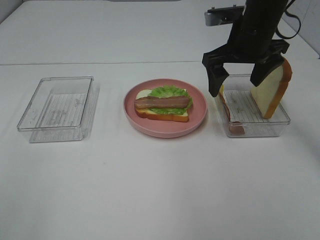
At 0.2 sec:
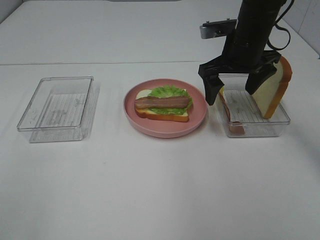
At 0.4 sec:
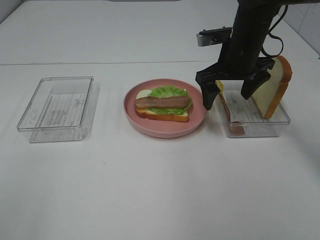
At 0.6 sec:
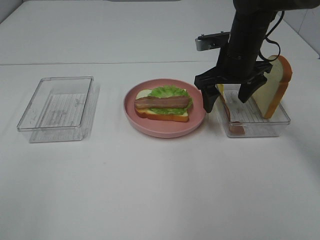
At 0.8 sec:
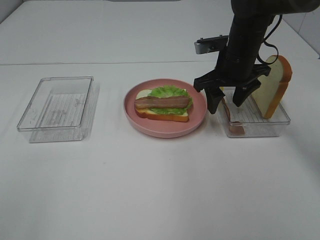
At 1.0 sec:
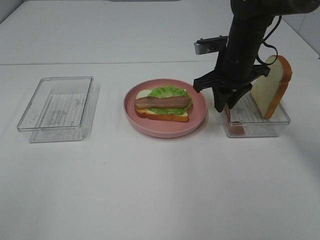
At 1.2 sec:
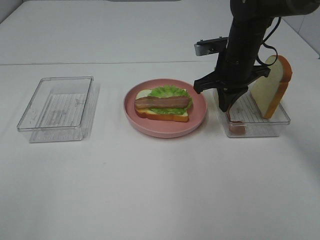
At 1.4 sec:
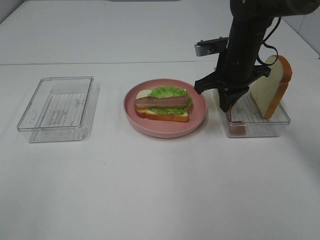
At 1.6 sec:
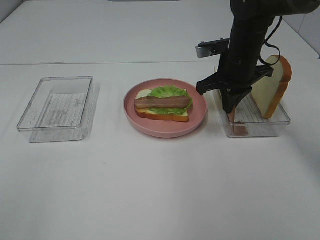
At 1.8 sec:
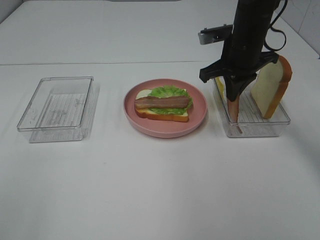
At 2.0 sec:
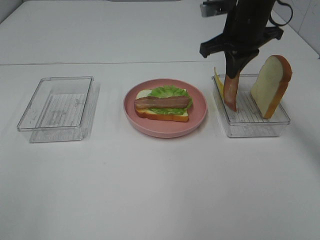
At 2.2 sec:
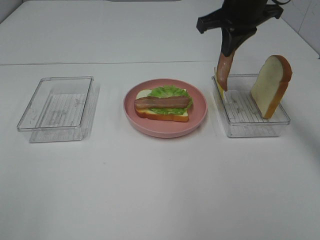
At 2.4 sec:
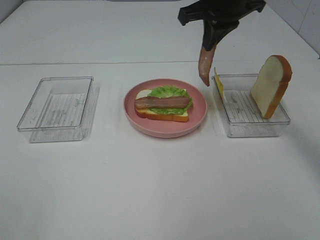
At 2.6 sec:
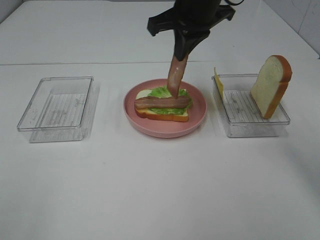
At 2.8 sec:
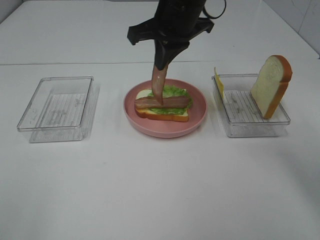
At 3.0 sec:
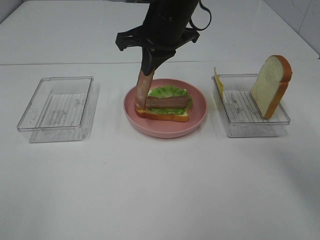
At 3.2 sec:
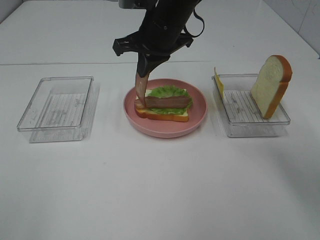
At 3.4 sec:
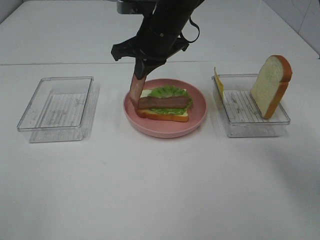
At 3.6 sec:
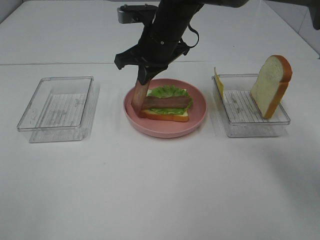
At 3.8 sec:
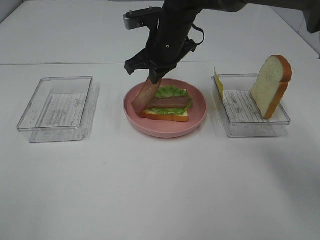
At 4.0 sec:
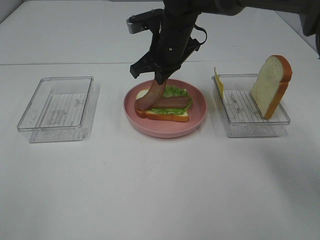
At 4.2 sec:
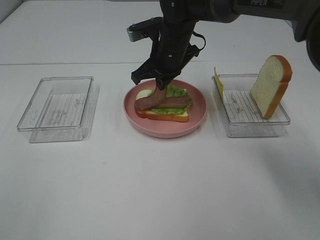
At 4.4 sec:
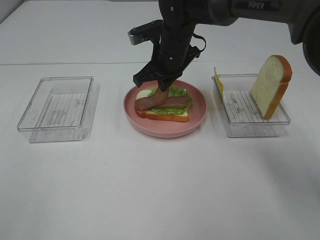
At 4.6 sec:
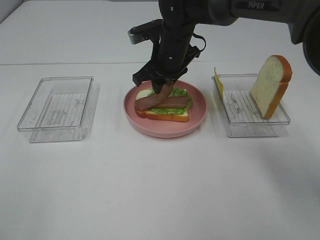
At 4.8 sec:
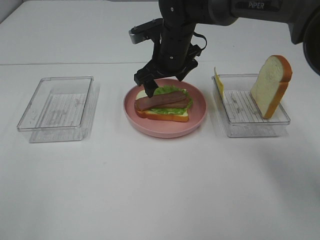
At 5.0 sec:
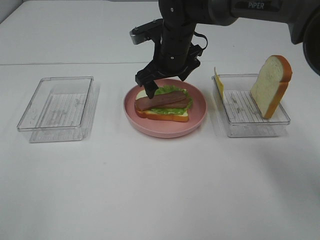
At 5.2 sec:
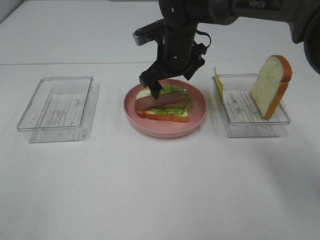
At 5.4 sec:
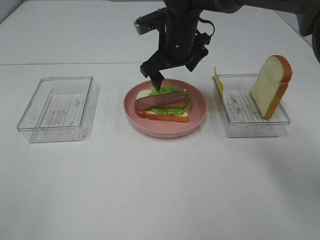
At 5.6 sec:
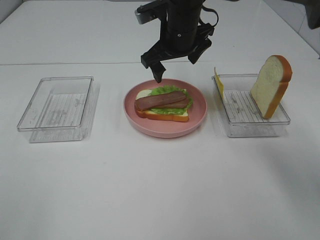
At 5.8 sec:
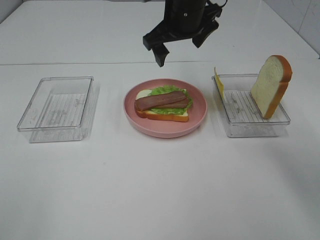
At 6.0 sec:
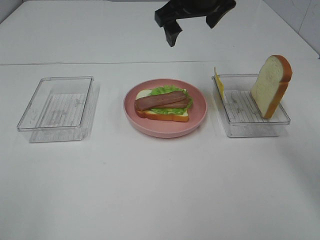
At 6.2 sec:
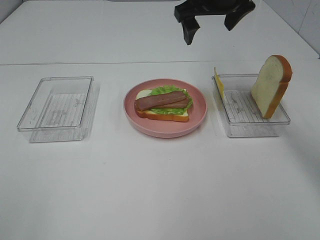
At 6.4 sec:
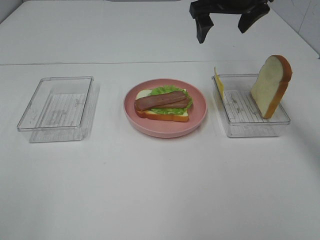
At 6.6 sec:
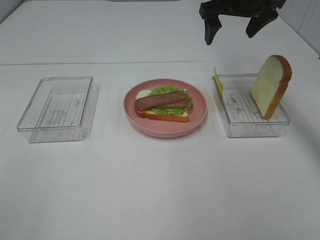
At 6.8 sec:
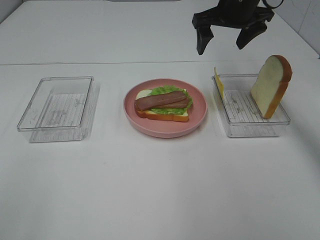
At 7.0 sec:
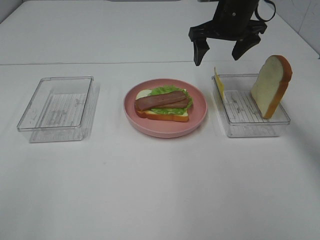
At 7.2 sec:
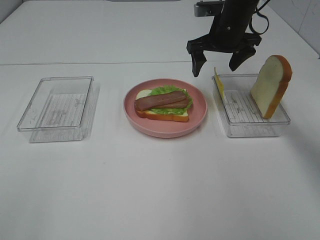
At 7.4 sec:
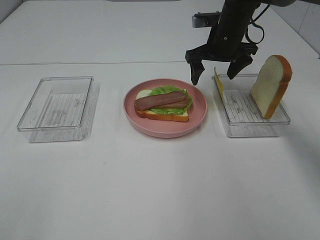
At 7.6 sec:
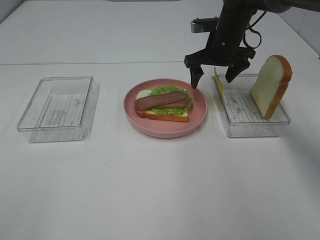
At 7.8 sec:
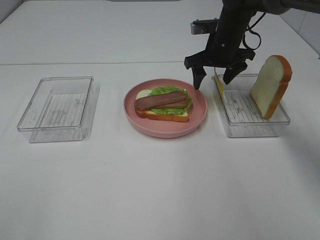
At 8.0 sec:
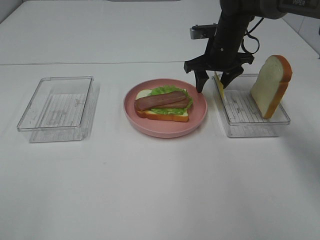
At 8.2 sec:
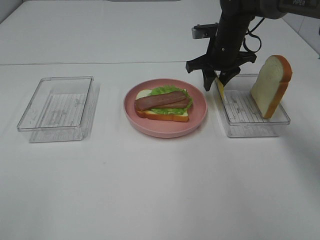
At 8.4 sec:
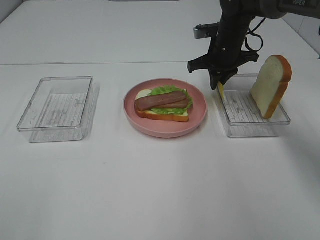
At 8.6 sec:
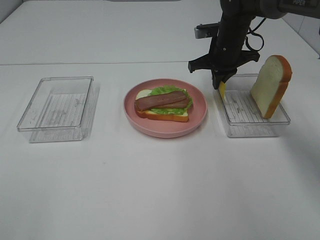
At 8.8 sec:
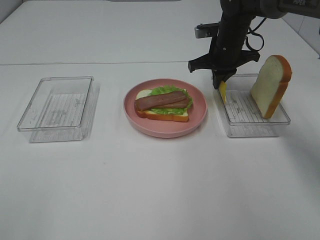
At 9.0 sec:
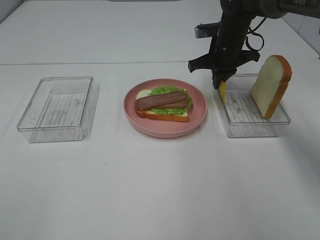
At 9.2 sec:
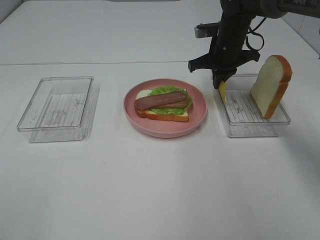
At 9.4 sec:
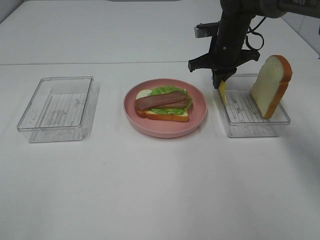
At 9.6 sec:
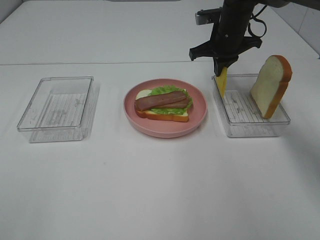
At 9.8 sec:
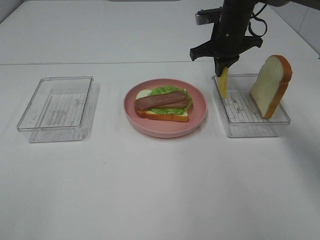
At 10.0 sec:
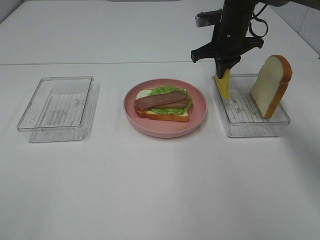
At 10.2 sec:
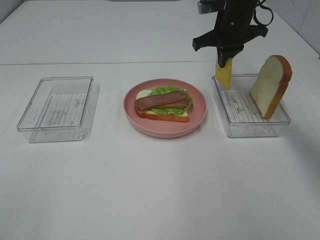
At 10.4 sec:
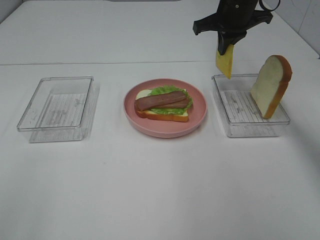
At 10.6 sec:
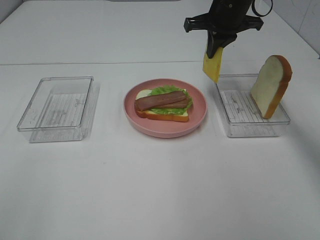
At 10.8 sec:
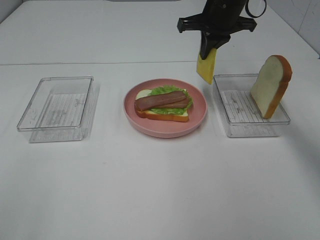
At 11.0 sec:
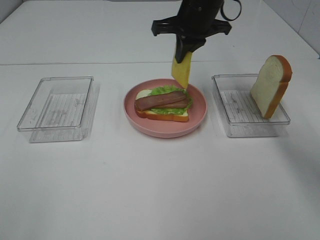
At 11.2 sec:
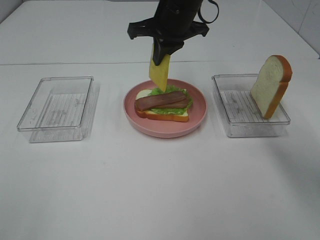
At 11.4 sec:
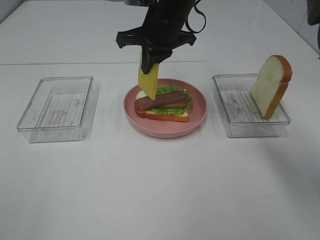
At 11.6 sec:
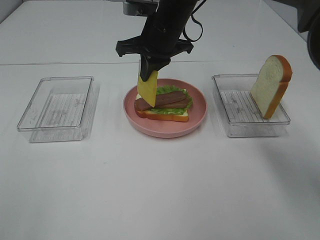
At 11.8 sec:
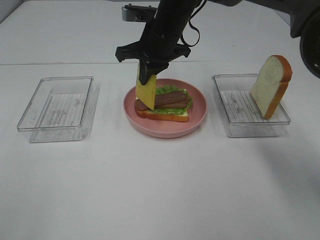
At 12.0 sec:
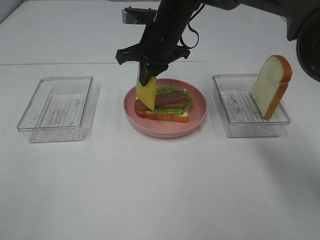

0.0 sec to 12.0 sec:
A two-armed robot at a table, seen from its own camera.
Task of the whole recording: Make sandwiches.
Step, 1.6 sec to 5.2 sec: Right hand:place bacon on bacon.
Step, 5.4 sec to 9.0 sec: Right hand:grab the cheese slice.
0.0 sec to 1.6 sec: The right gripper travels downward by roughly 5 cm, and closes.
1.6 sec to 3.0 sec: The right gripper goes some 15 cm to the left and upward.
3.0 sec to 4.4 sec: The right gripper shifts some 10 cm downward.
4.4 sec to 6.0 sec: The right gripper moves upward, some 15 cm, and opens up.
6.0 sec to 7.6 sec: The right gripper goes roughly 15 cm downward, to the right and forward.
7.6 sec to 9.0 sec: The right gripper closes.
9.0 sec to 10.4 sec: The right gripper moves upward, some 10 cm.
10.4 sec to 12.0 sec: The right gripper moves to the left, approximately 15 cm.

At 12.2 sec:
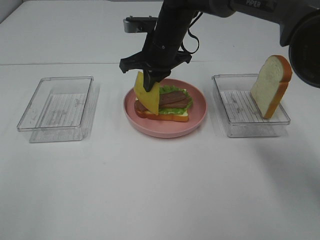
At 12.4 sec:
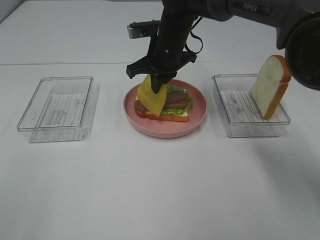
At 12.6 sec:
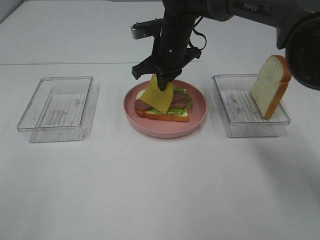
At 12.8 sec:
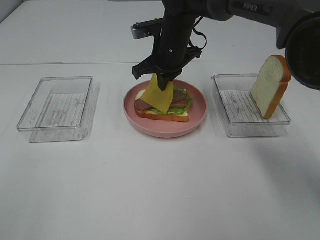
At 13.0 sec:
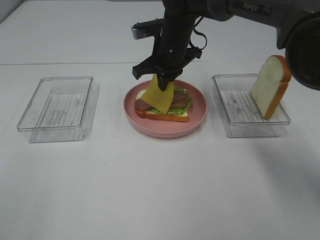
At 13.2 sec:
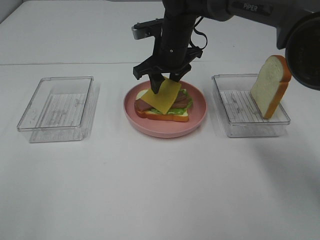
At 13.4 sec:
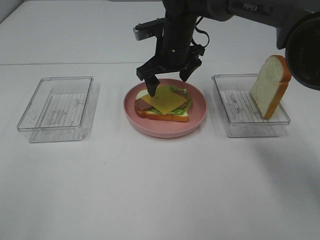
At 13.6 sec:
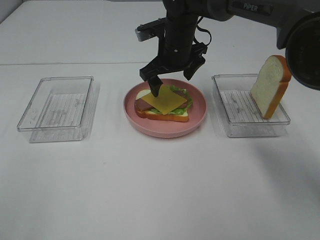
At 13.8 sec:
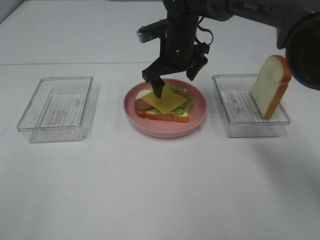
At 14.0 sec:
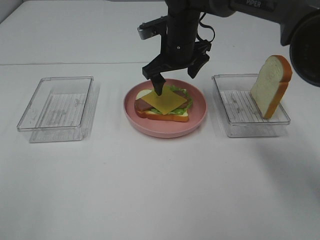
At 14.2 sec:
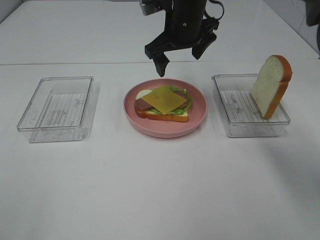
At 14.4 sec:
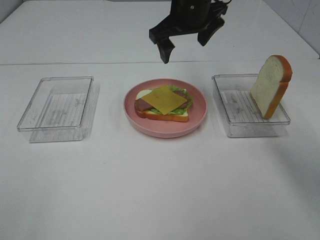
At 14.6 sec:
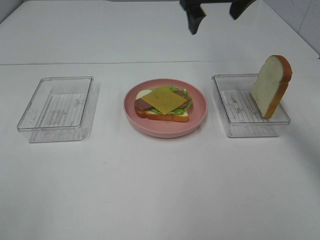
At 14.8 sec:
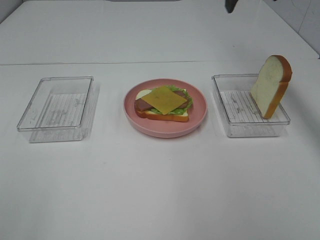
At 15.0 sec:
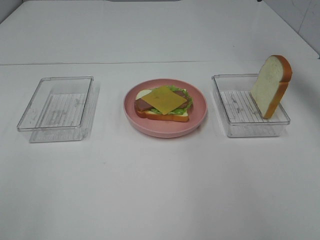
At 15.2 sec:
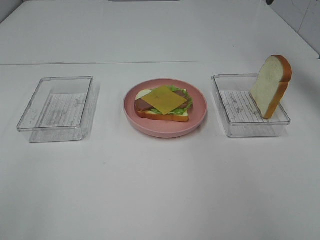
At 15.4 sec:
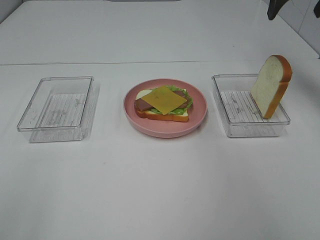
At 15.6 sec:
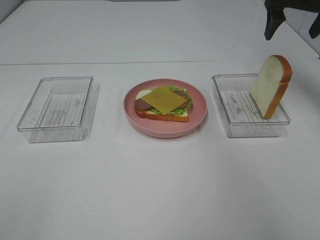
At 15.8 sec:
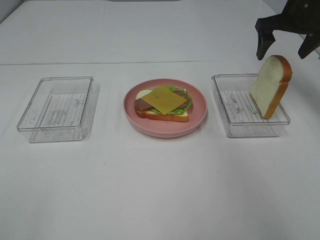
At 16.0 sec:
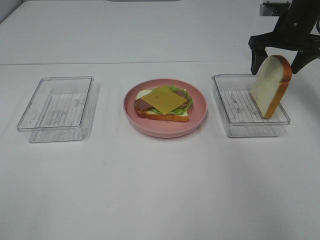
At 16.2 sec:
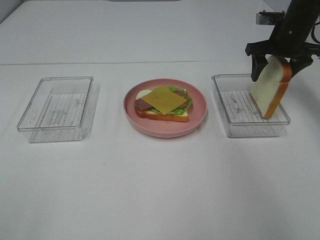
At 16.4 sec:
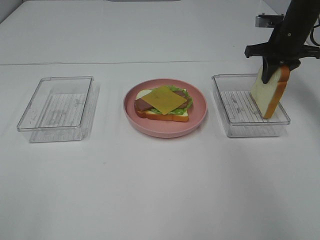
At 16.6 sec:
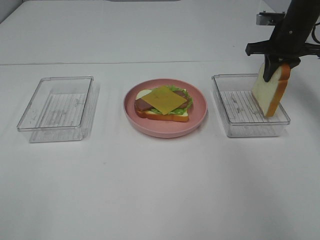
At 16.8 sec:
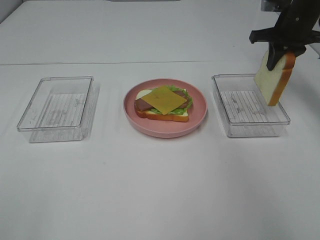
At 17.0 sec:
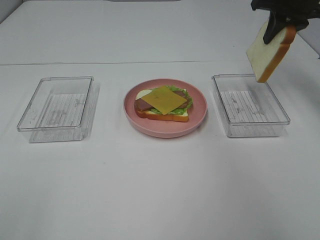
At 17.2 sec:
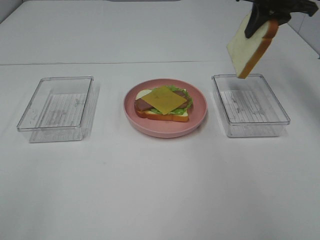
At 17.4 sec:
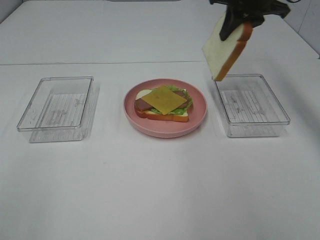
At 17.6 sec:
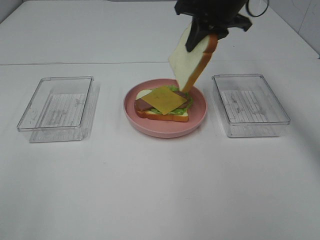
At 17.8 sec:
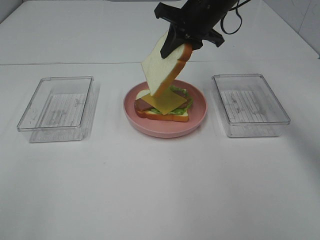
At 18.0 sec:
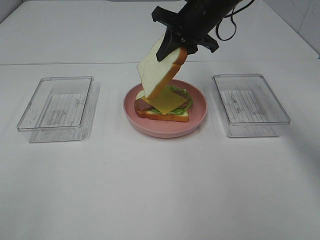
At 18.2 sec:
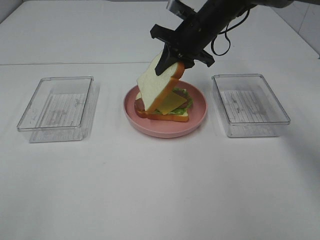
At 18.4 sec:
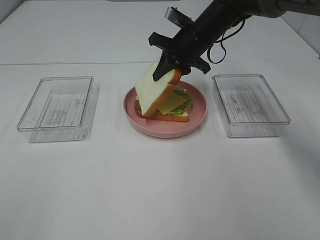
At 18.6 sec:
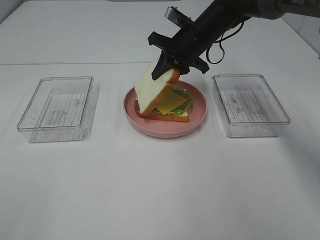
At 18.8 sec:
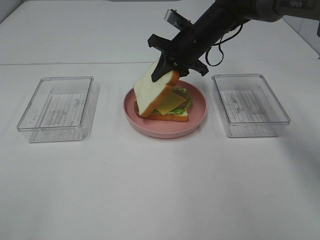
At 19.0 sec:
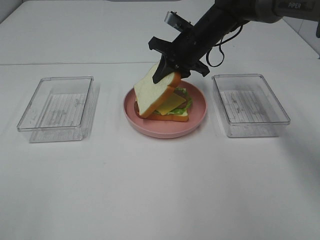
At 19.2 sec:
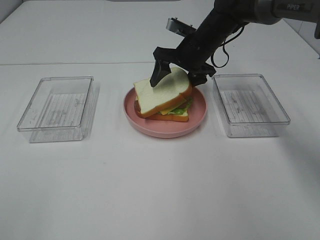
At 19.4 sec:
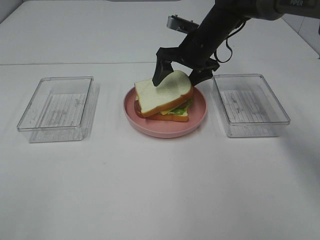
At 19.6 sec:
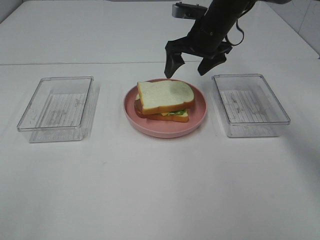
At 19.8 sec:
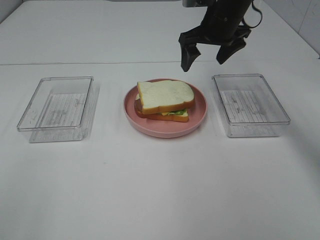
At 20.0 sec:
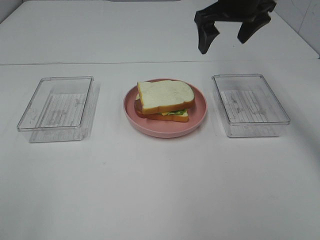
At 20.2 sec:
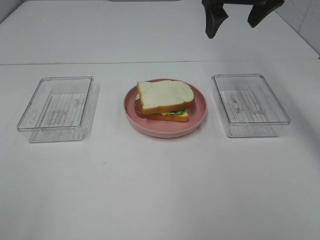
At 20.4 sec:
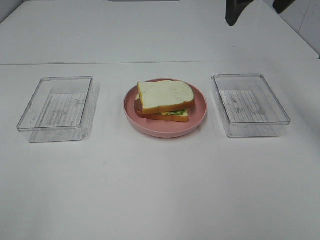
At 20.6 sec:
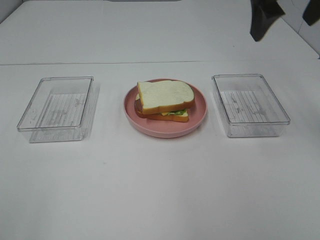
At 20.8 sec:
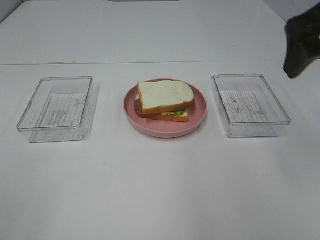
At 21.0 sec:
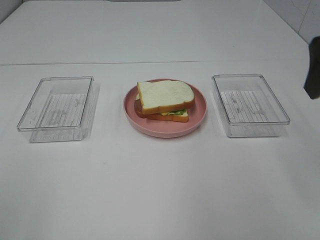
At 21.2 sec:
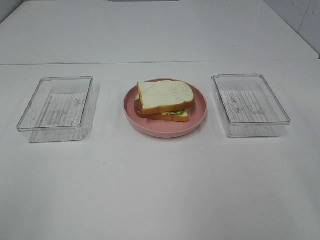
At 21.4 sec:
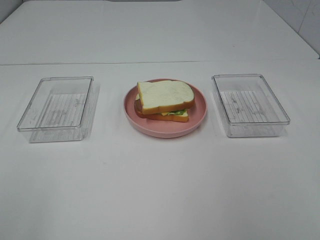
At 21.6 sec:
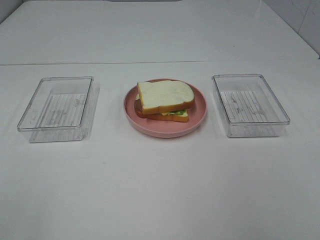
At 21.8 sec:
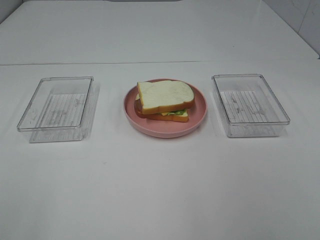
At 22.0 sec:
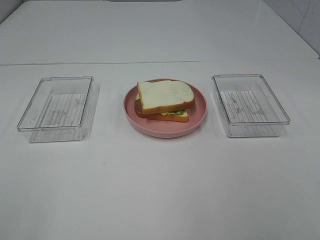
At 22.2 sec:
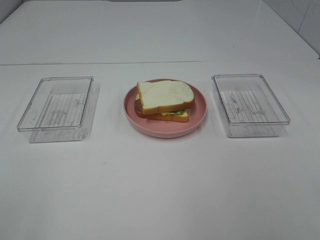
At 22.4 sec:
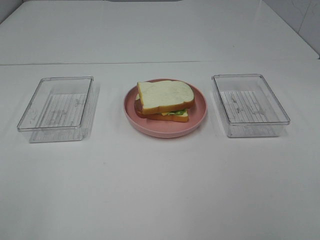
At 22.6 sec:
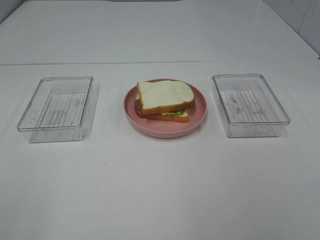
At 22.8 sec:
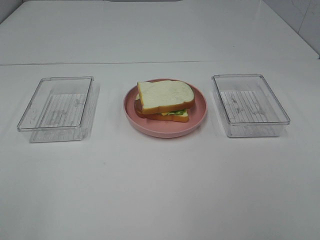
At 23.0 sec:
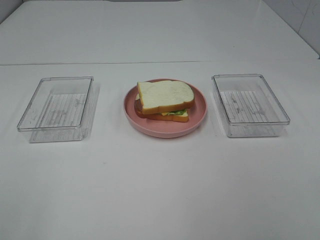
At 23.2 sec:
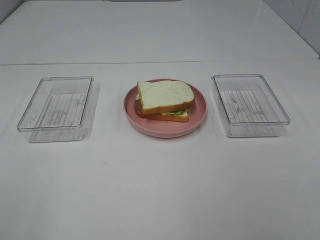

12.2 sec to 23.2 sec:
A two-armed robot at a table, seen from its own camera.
Task of the whole recording: Make sandwiches.
Step, 14.0 sec to 16.6 sec: Right hand:grab the bread slice.
Step, 16.8 sec to 19.6 sec: Right hand:place the bread slice on the cheese slice.
12.2 sec to 13.8 sec: The right gripper opens its fingers.
13.8 sec to 15.4 sec: The right gripper shifts roughly 30 cm to the right and upward.
15.4 sec to 17.0 sec: The right gripper travels downward and back again, some 15 cm each way, and closes.
17.0 sec to 18.4 sec: The right gripper heads to the left and downward, covering roughly 20 cm.
18.4 sec to 20.0 sec: The right gripper travels upward and to the right by roughly 10 cm, and opens its fingers.
20.0 sec to 21.6 sec: The right gripper moves backward and to the right, roughly 40 cm.
